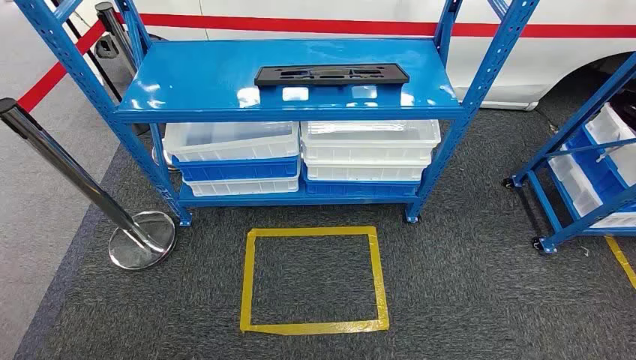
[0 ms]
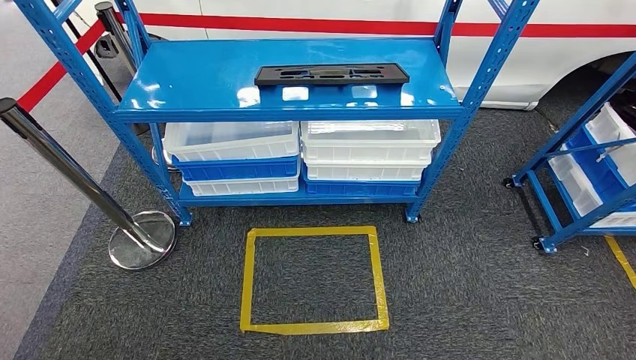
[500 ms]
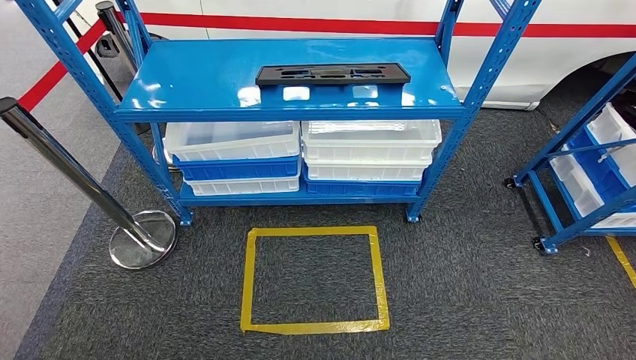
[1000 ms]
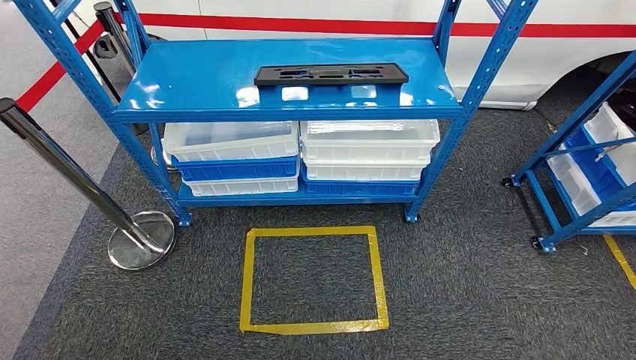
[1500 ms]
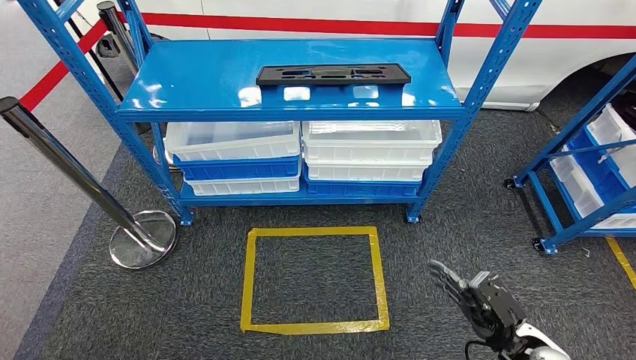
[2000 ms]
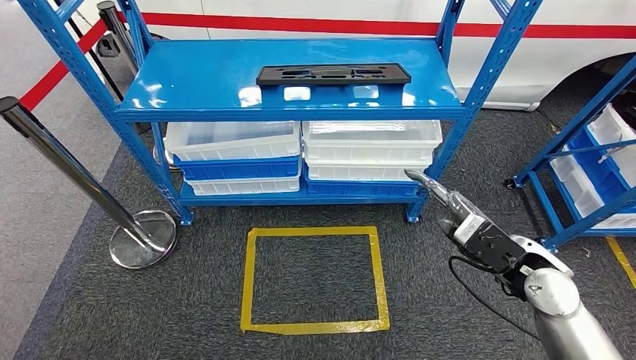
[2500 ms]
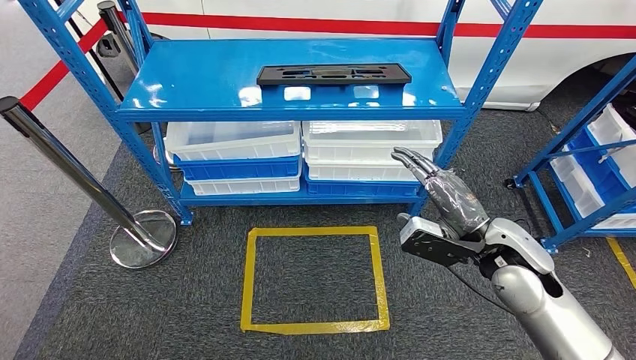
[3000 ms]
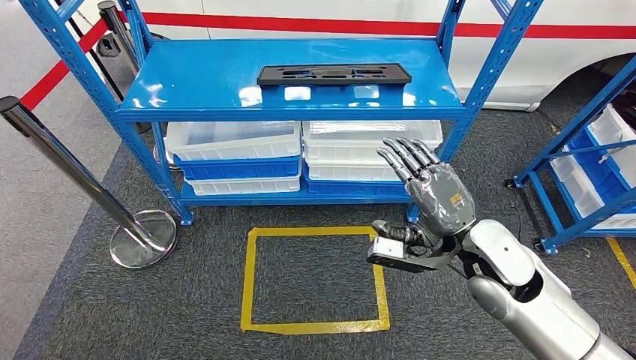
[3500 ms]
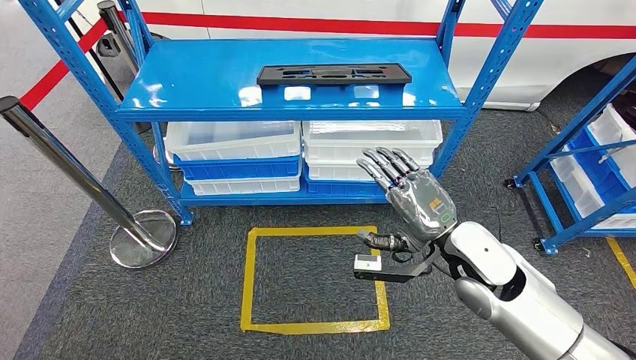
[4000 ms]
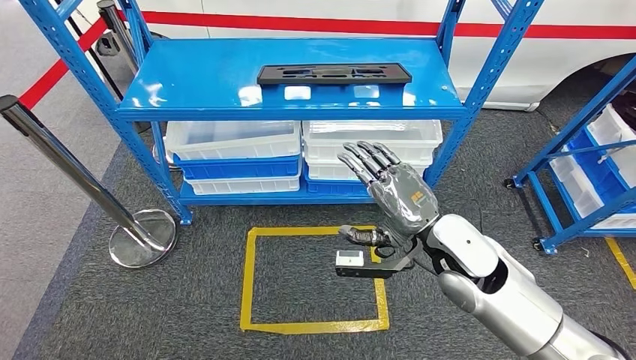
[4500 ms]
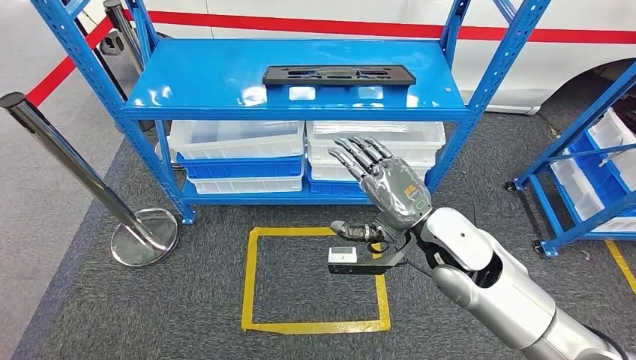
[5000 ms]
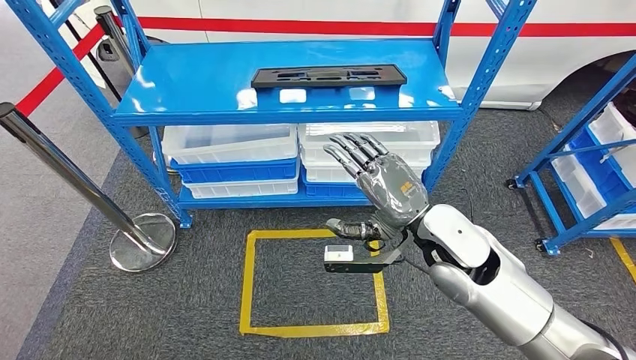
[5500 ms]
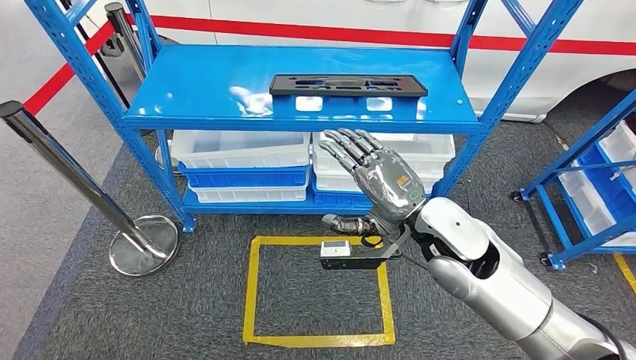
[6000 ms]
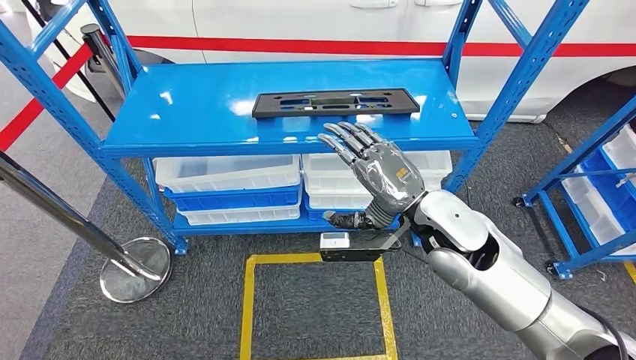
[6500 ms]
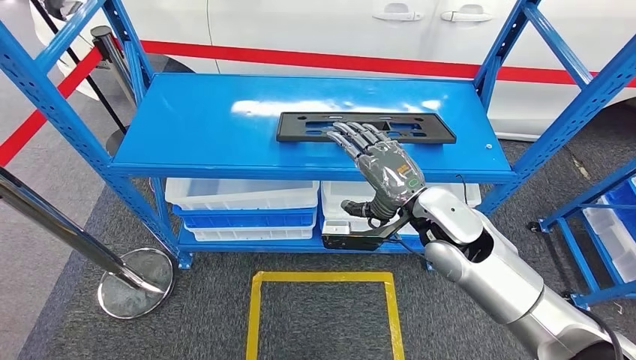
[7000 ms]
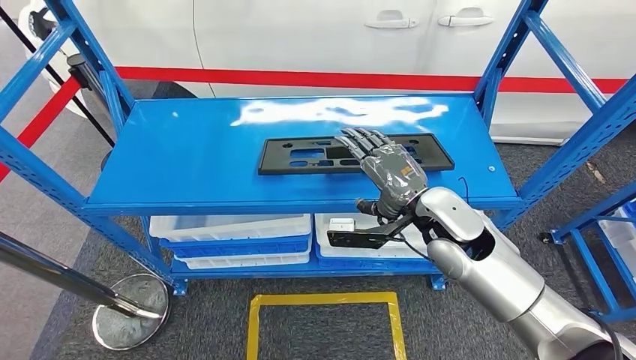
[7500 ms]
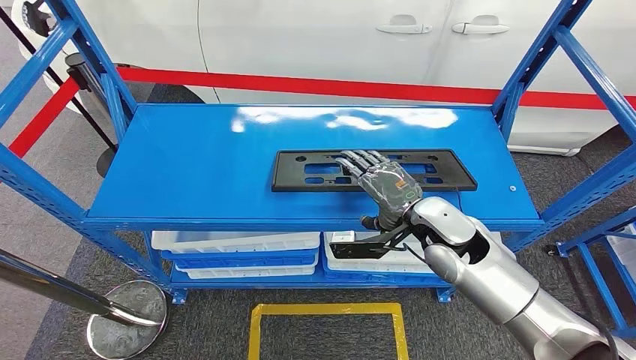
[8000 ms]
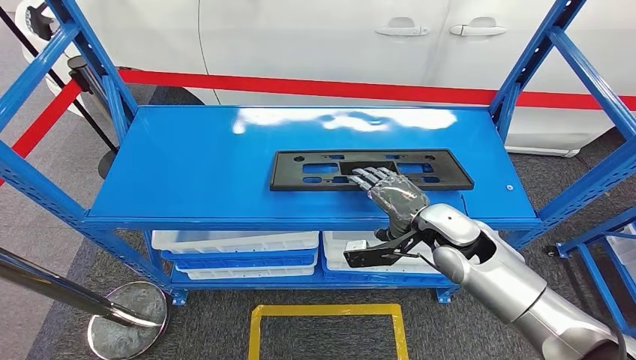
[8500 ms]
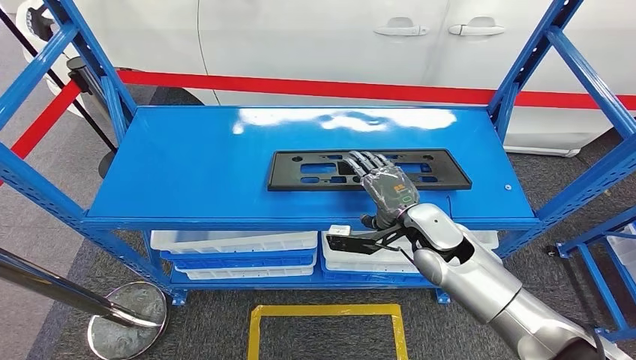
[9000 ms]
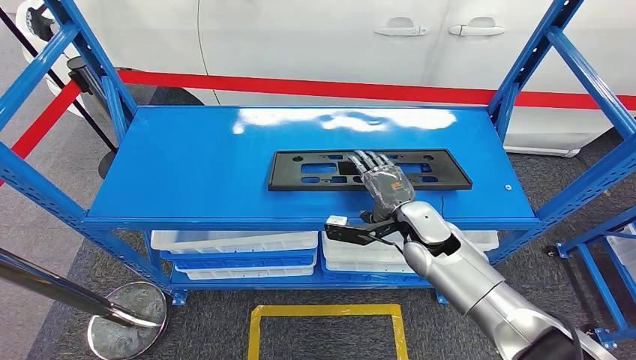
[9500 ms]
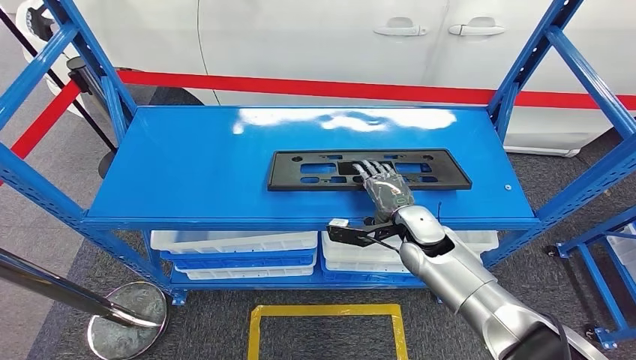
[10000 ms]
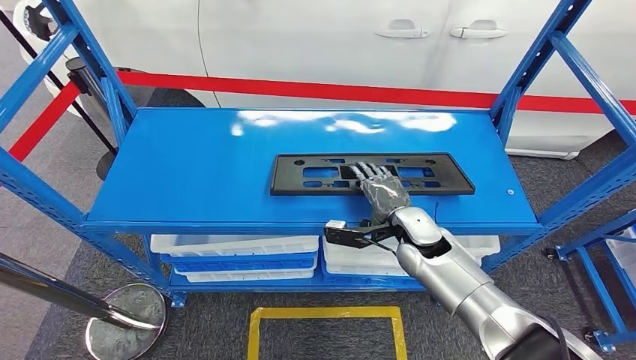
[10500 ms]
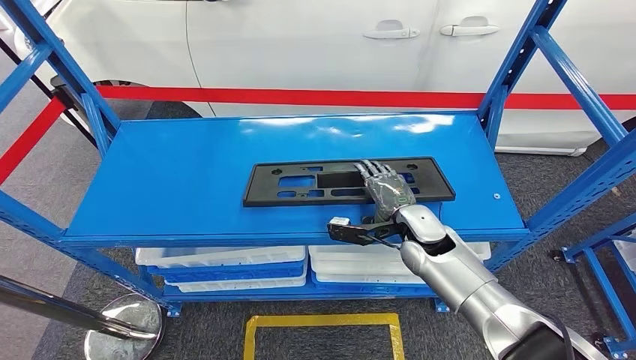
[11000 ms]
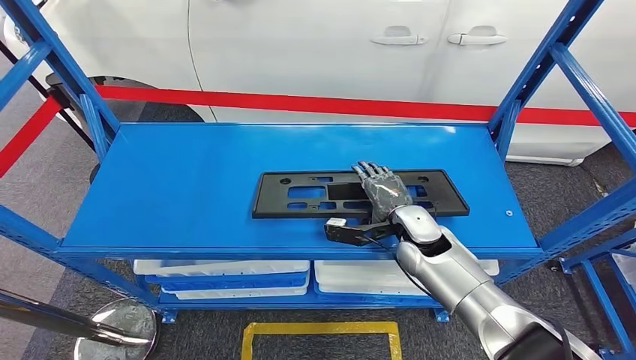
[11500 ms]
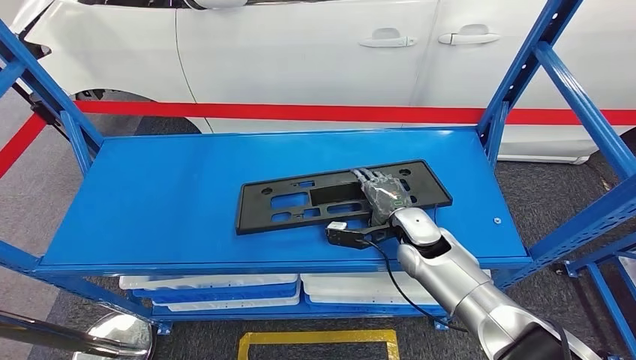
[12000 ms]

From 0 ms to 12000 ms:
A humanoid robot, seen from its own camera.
From 2000 ms to 4000 ms: The right hand goes some 30 cm upward, forward and to the left.
From 8000 ms to 10000 ms: The right hand travels downward by about 5 cm.

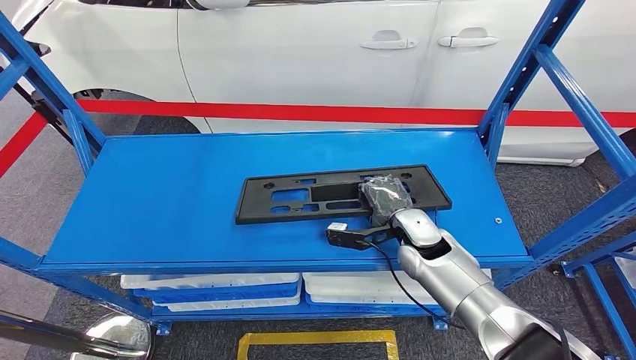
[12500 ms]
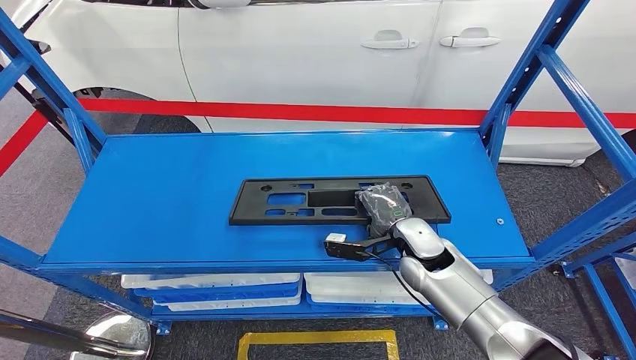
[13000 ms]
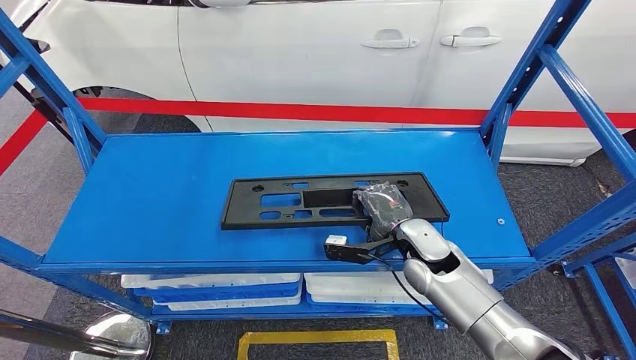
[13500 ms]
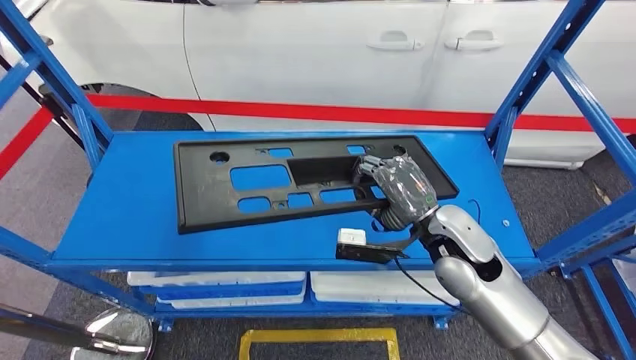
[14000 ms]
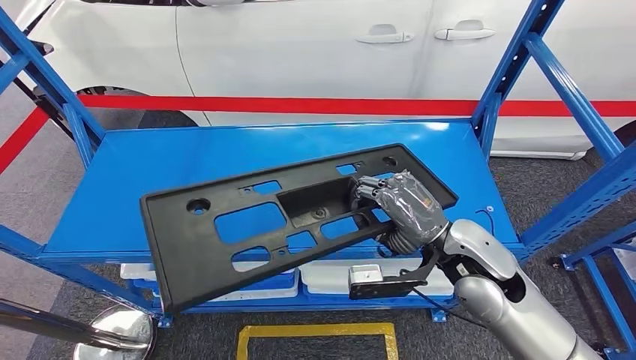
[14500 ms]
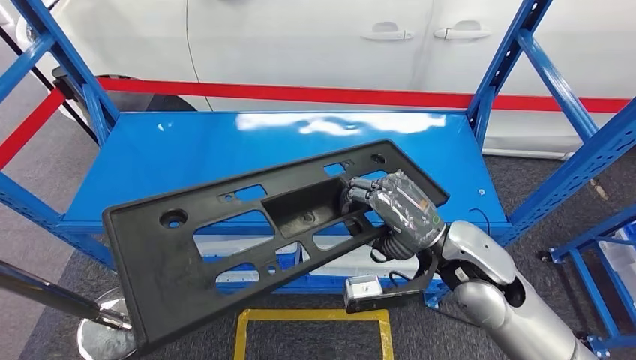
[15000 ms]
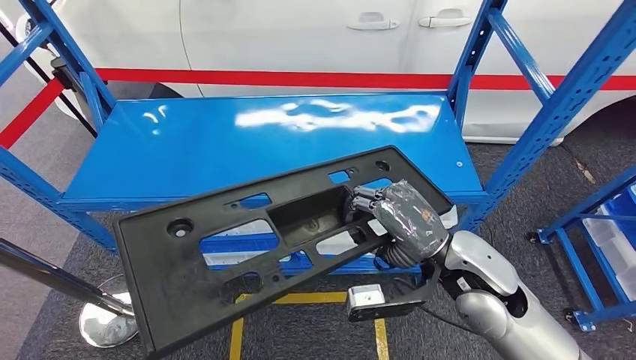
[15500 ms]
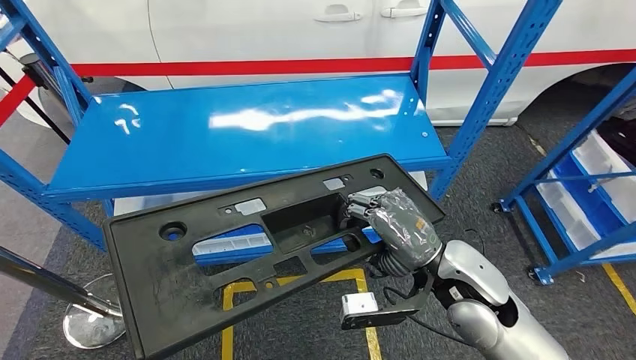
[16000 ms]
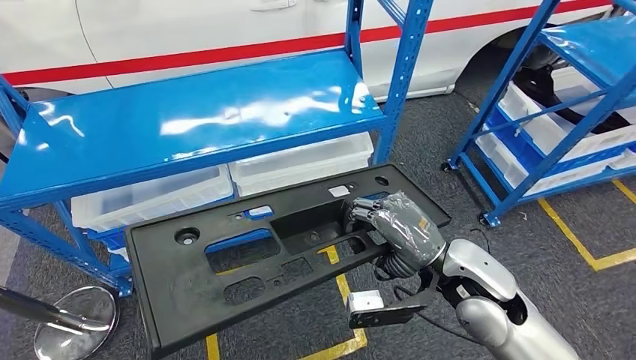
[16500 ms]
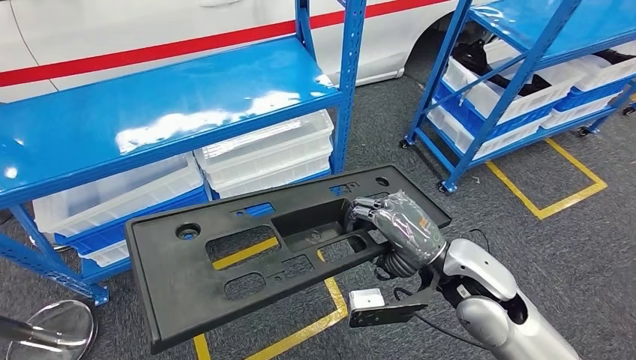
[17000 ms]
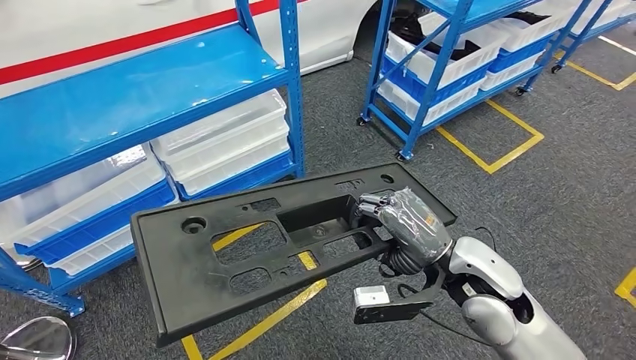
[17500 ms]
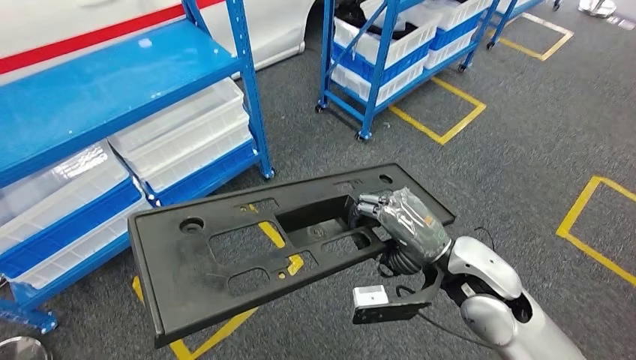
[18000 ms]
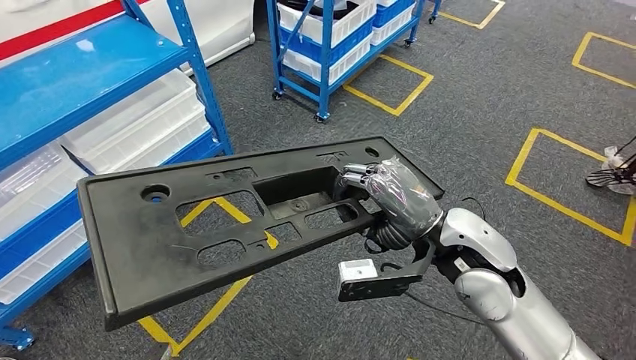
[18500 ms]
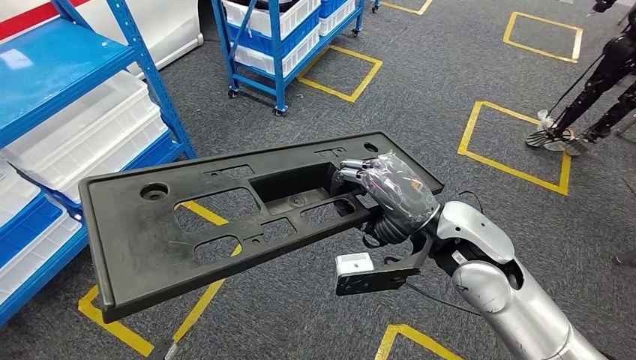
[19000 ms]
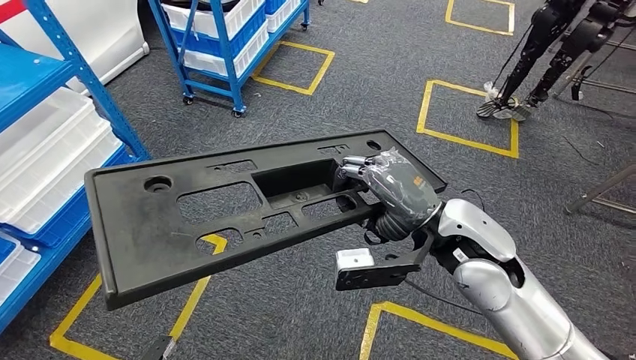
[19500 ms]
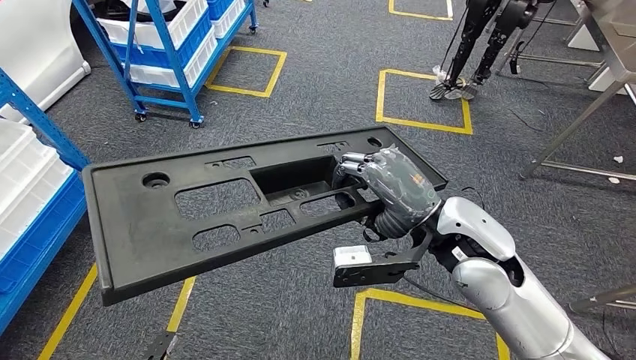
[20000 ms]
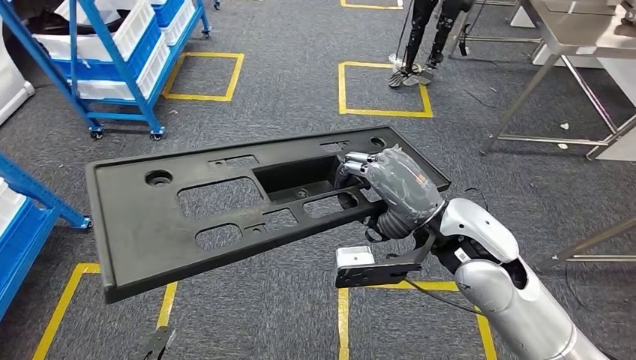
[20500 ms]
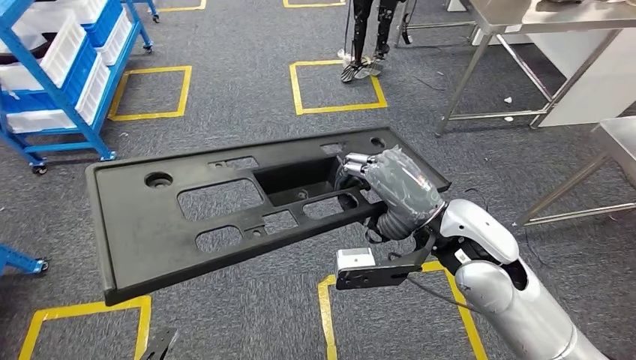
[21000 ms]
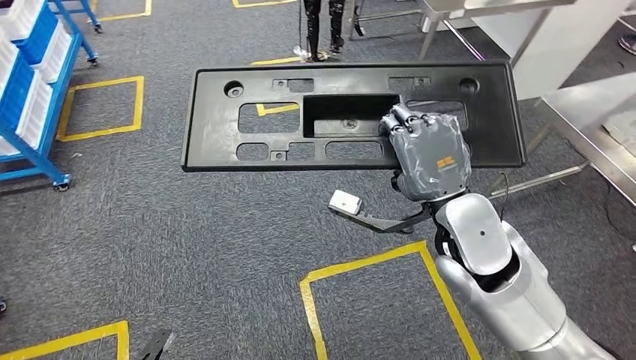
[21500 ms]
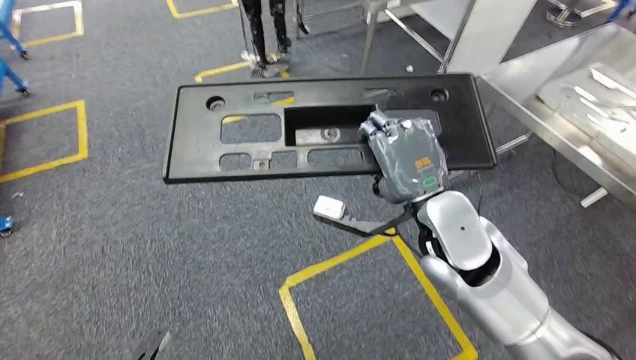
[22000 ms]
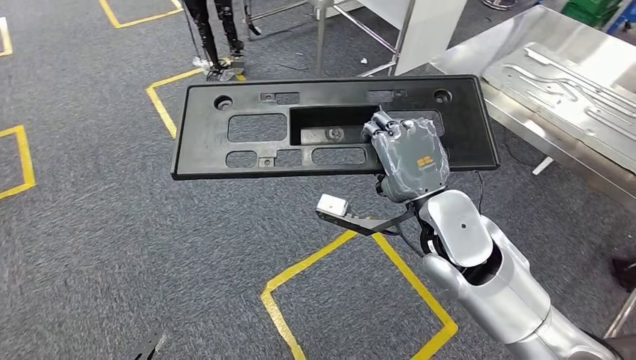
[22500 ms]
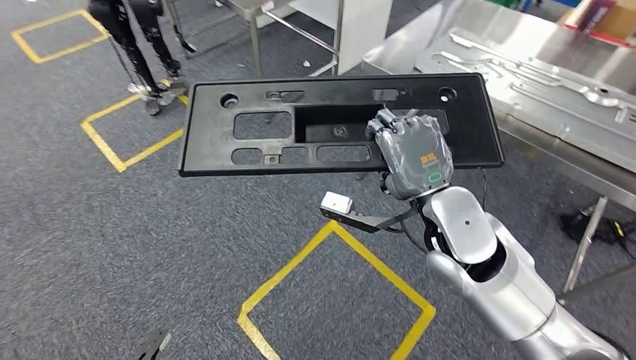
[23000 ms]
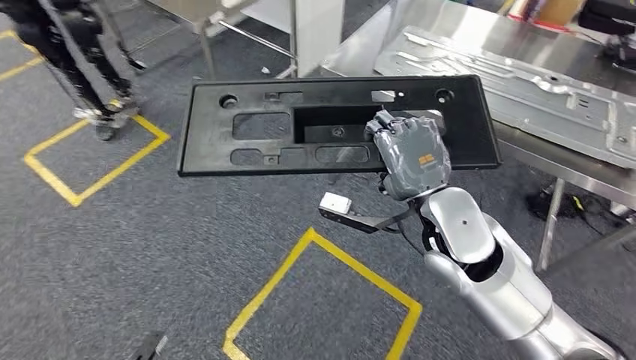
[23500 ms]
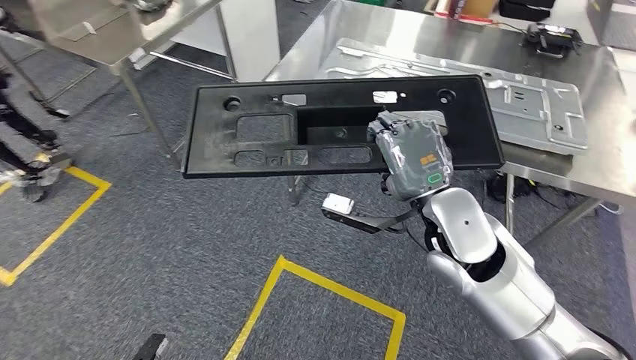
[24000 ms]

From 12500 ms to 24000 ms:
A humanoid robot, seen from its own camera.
Step, from 12500 ms to 16500 ms: Pick up the large material from the shelf.
